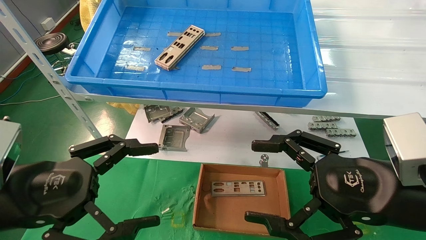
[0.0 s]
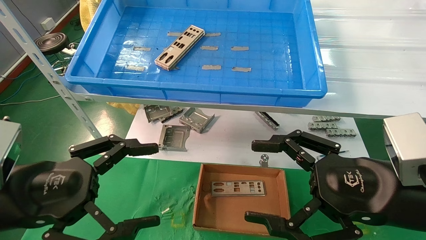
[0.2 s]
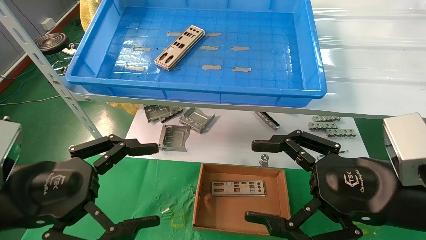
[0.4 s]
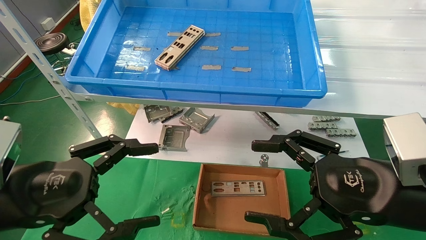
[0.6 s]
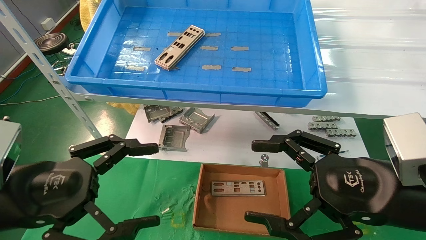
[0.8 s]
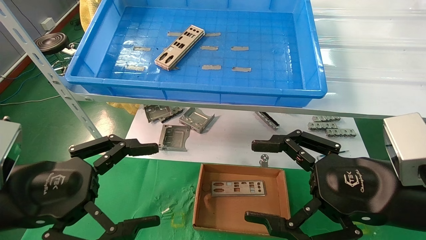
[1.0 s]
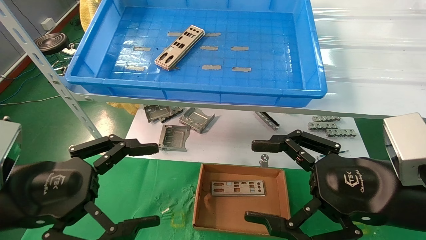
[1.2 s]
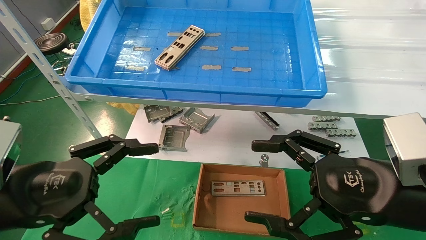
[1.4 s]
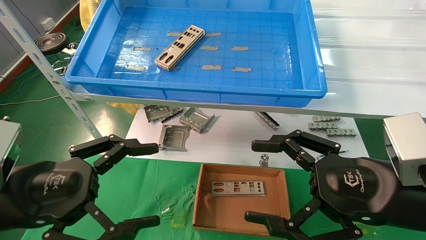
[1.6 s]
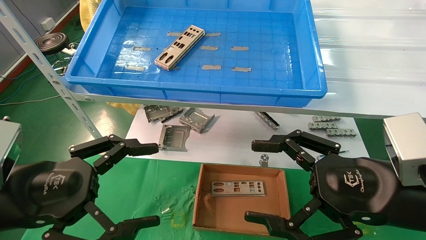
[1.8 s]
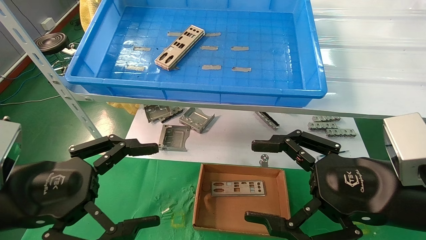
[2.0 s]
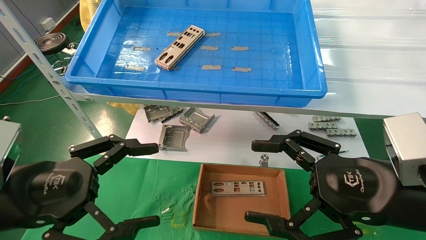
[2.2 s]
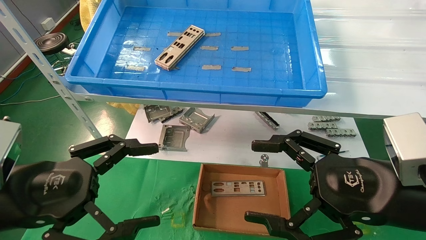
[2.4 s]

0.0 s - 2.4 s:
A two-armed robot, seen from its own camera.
Task of the whole recording: pick up the parts on the tray and put them in the cardboard box.
0.0 s - 2.4 s: The two grippers keep their place.
